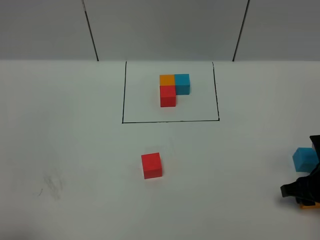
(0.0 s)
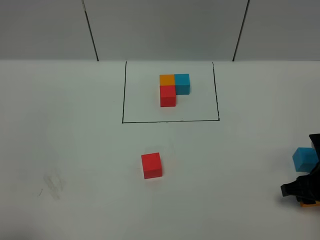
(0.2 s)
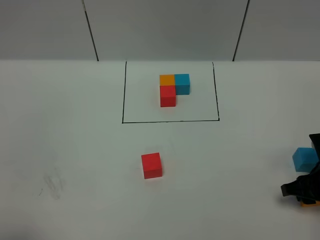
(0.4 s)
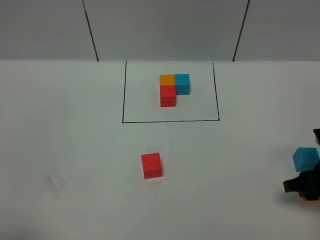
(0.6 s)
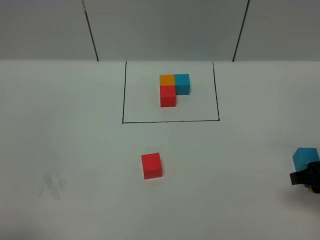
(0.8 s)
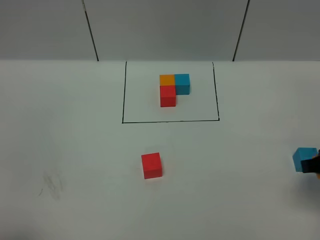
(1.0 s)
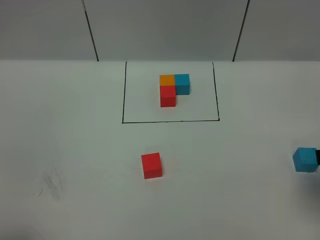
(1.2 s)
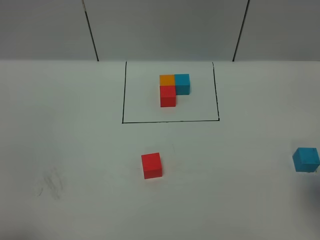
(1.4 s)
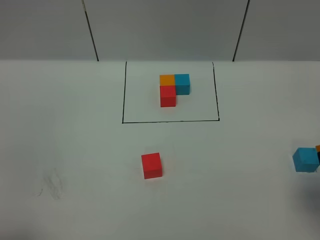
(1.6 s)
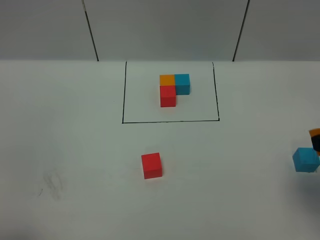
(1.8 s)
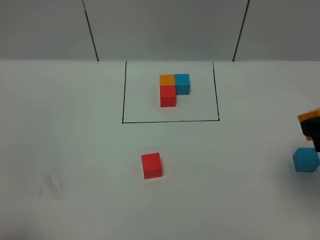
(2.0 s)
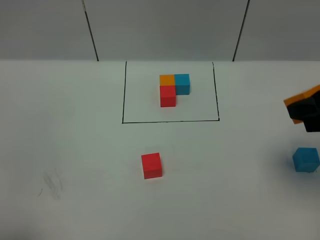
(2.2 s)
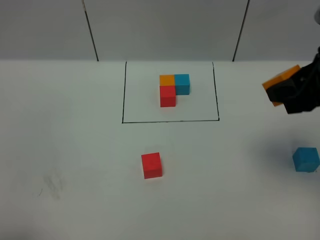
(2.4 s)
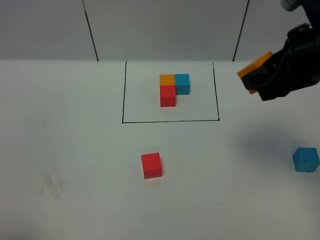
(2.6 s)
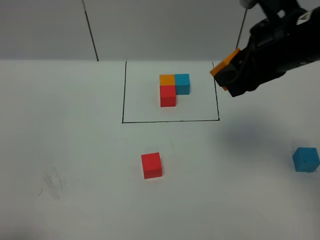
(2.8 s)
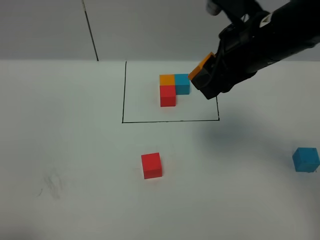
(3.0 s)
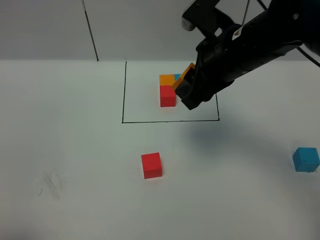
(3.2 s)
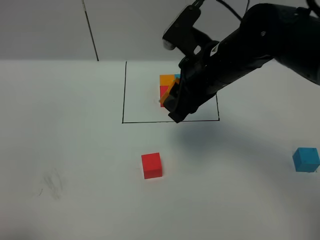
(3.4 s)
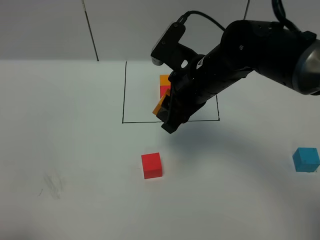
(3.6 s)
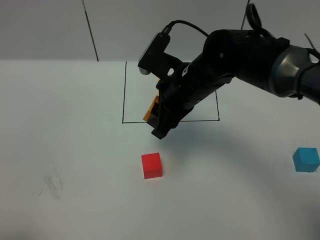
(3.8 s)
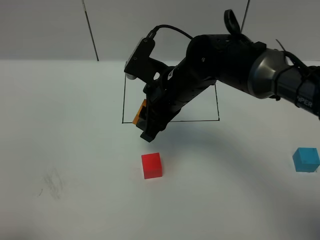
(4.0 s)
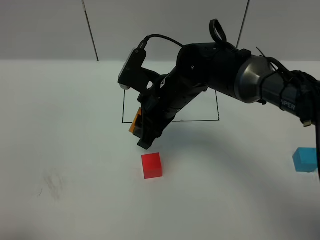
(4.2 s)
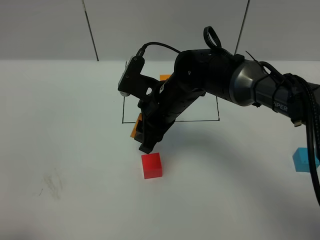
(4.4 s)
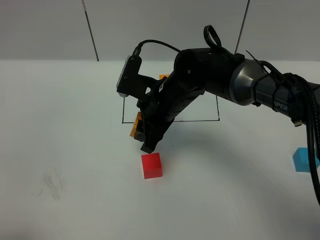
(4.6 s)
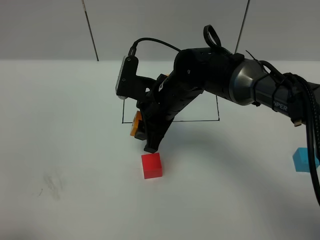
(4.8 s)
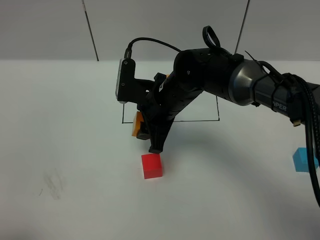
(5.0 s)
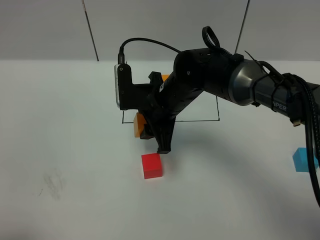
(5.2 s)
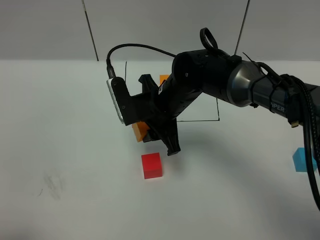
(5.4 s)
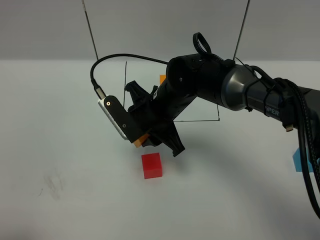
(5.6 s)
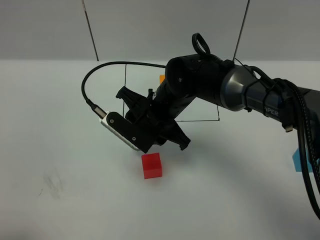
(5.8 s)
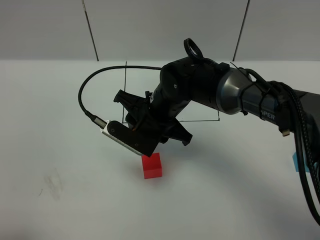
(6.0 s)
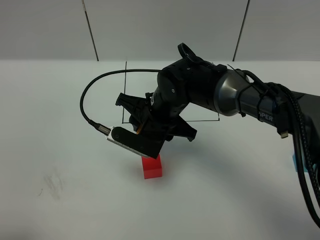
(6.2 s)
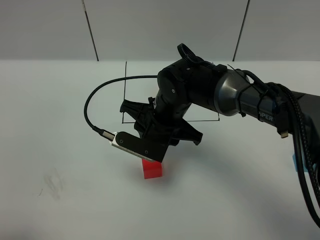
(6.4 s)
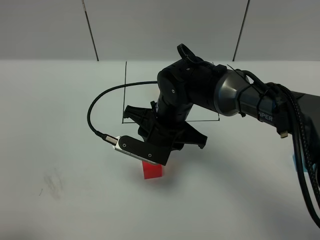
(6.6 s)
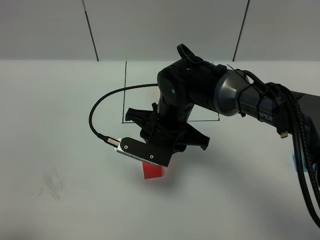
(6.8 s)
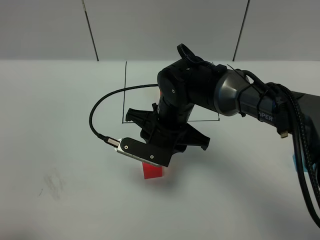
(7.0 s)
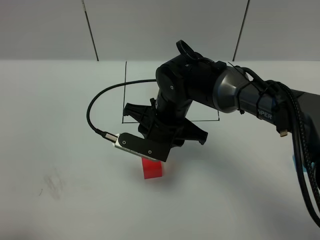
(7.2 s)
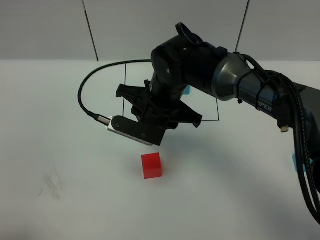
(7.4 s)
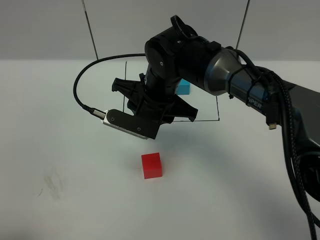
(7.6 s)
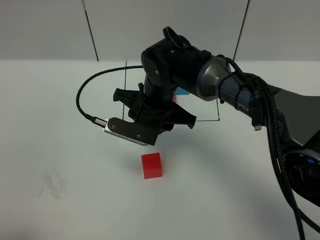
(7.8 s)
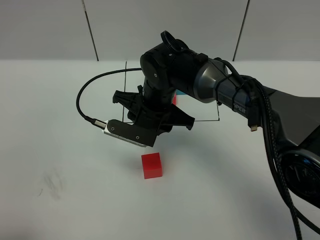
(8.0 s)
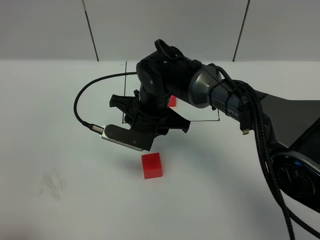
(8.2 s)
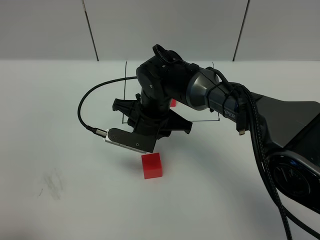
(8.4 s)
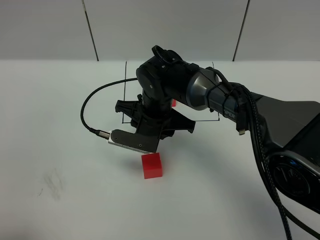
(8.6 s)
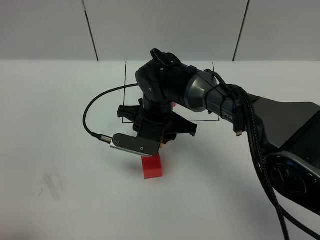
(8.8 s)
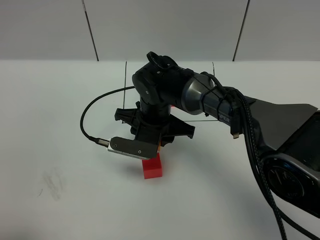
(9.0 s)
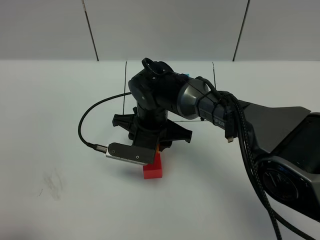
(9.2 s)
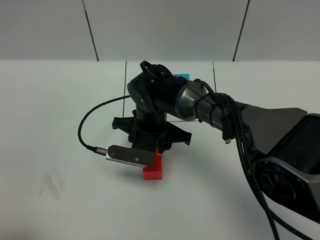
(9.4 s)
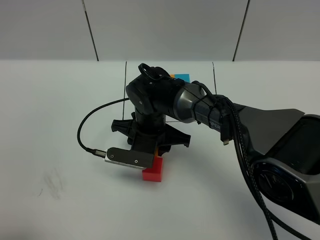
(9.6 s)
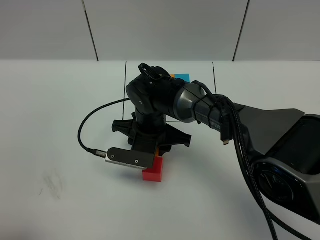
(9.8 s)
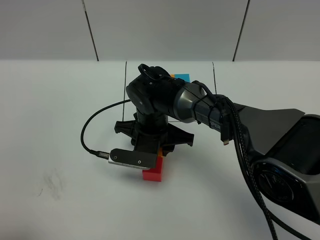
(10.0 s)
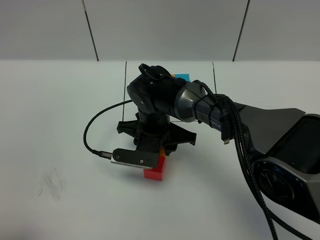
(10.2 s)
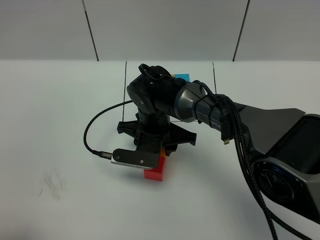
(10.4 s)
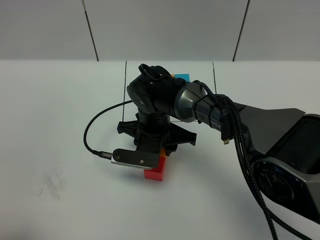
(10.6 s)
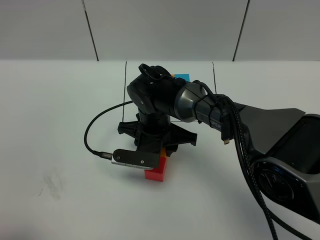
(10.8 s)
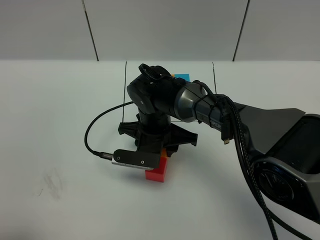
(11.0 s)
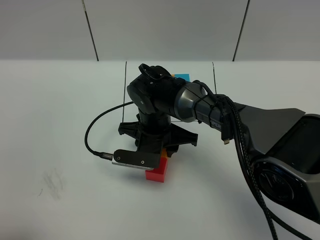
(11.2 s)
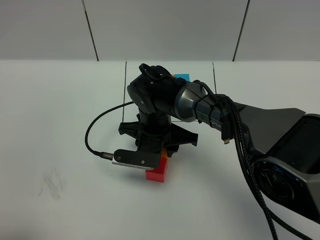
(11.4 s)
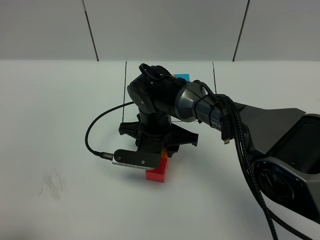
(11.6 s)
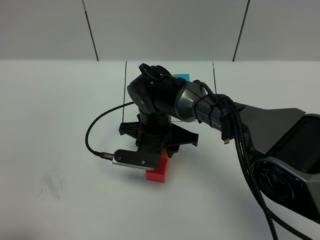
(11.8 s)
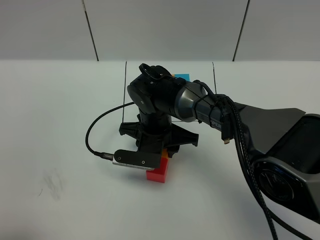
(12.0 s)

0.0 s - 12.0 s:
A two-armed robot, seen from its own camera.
Task of the whole recording: According to the building block template in front, assemble the scattered blocks together.
0.0 s - 1.6 s: The right gripper moves upward, some 20 cm.
1.6 s - 3.0 s: The right gripper heads forward and to the left, covering approximately 20 cm.
3.0 s - 4.4 s: The right gripper shifts some 20 cm downward and to the left.
6.0 s - 7.6 s: There are only small adjustments of the grippers.
7.6 s - 9.0 s: The right gripper heads downward, covering about 5 cm.
9.0 s - 10.4 s: There are only small adjustments of the grippers.
10.4 s - 12.0 s: Both grippers stay about where they are.

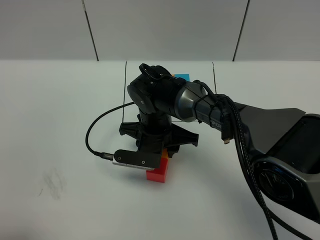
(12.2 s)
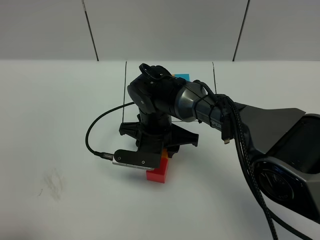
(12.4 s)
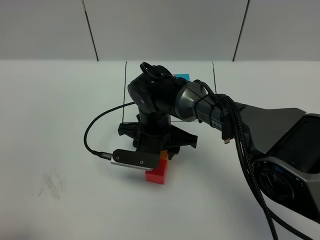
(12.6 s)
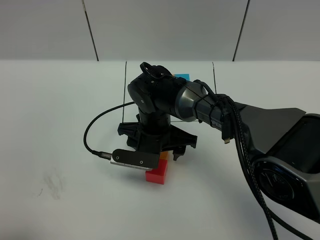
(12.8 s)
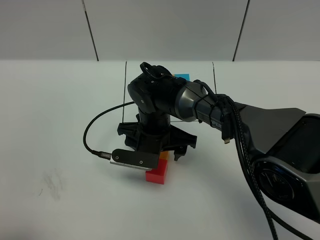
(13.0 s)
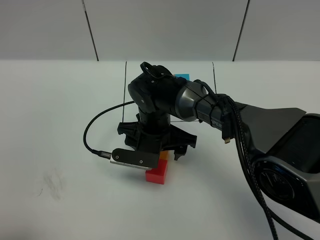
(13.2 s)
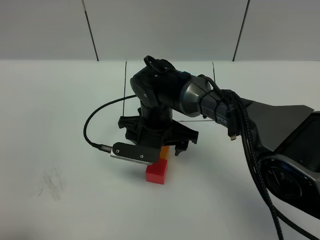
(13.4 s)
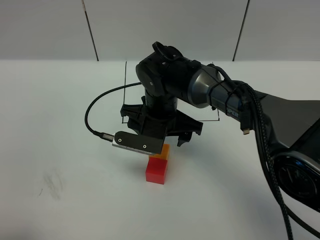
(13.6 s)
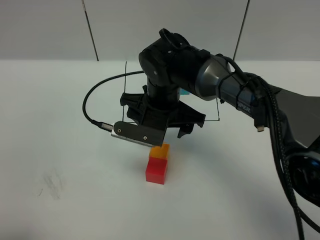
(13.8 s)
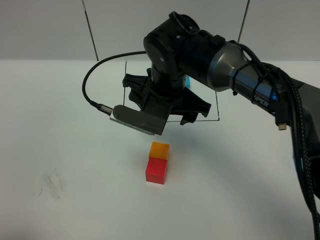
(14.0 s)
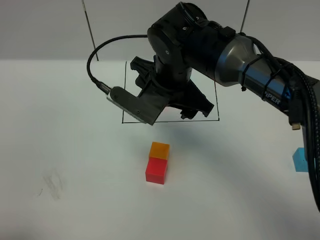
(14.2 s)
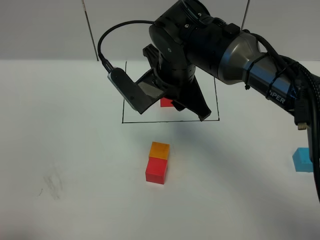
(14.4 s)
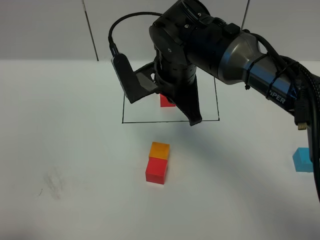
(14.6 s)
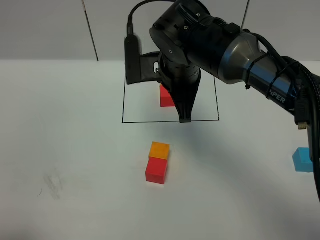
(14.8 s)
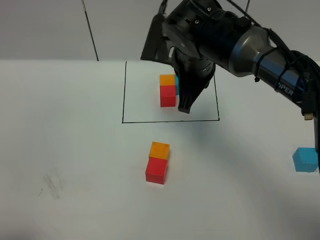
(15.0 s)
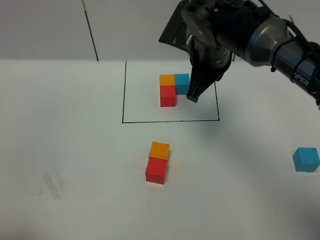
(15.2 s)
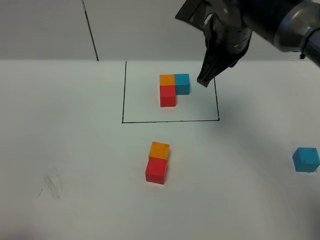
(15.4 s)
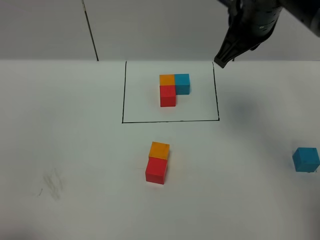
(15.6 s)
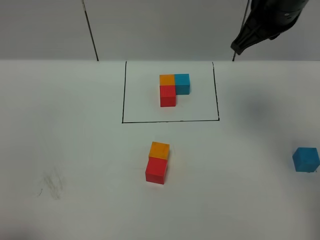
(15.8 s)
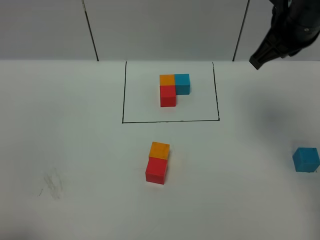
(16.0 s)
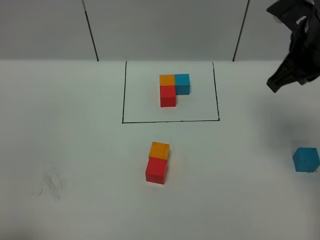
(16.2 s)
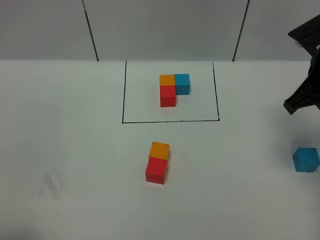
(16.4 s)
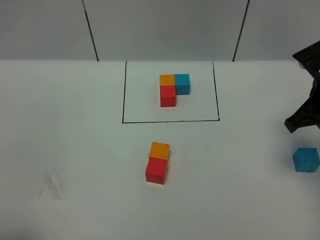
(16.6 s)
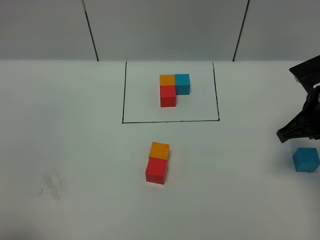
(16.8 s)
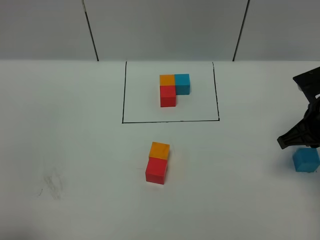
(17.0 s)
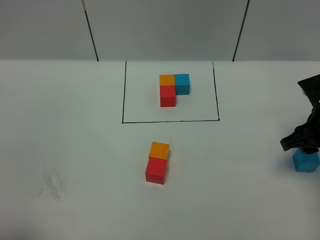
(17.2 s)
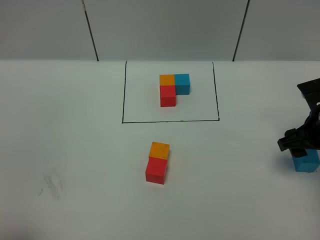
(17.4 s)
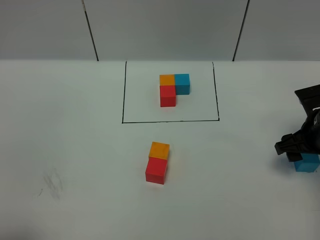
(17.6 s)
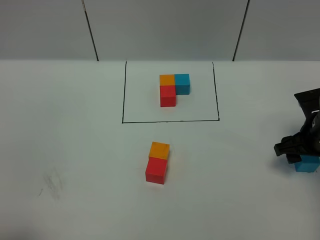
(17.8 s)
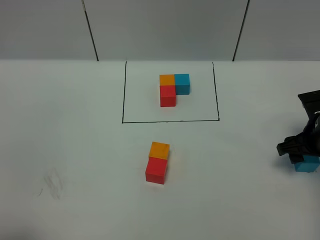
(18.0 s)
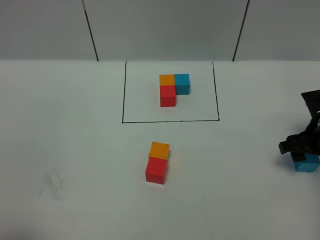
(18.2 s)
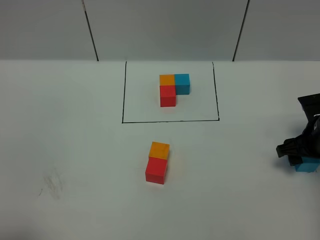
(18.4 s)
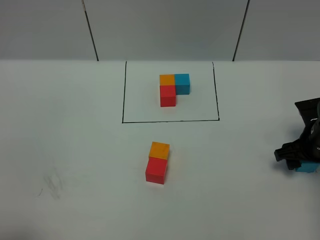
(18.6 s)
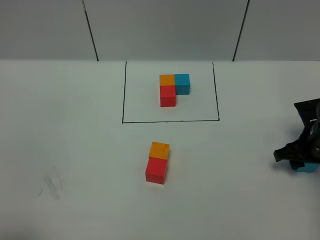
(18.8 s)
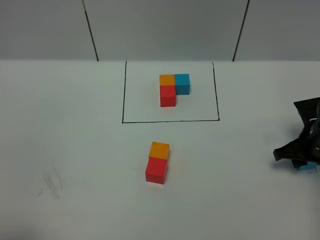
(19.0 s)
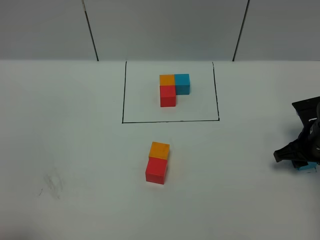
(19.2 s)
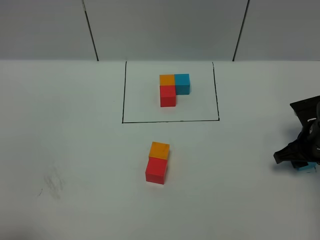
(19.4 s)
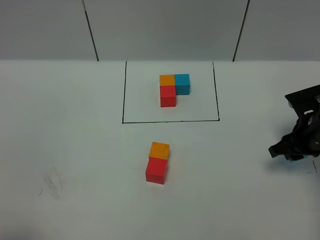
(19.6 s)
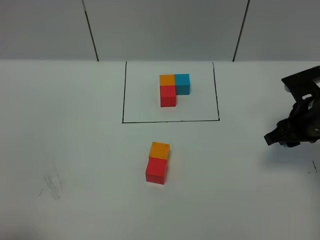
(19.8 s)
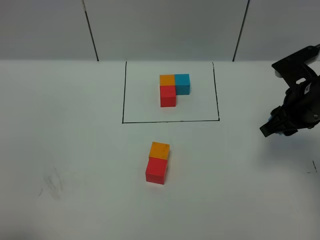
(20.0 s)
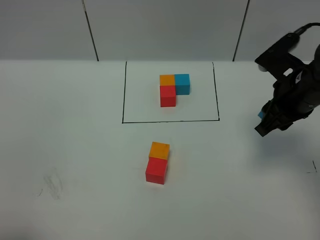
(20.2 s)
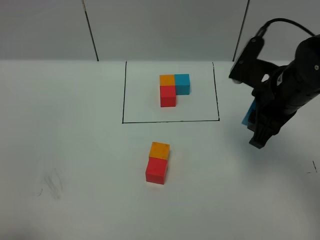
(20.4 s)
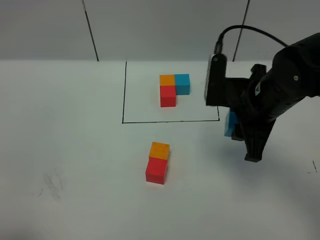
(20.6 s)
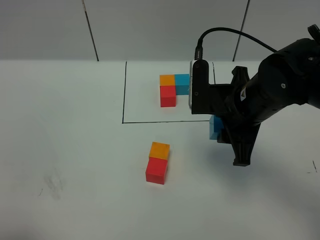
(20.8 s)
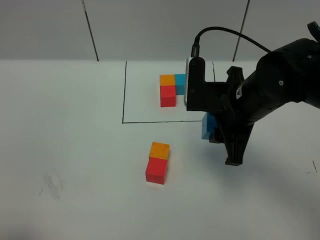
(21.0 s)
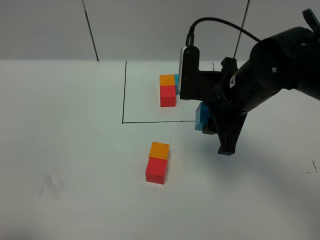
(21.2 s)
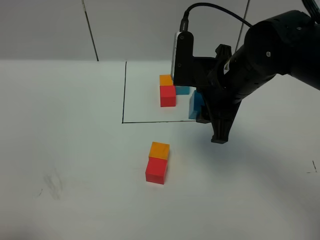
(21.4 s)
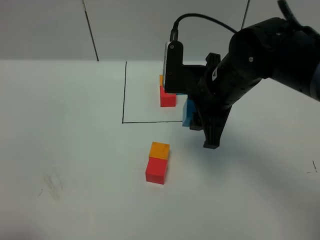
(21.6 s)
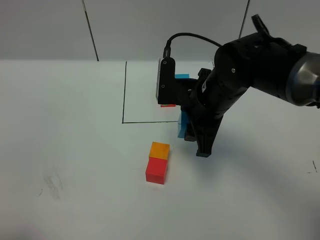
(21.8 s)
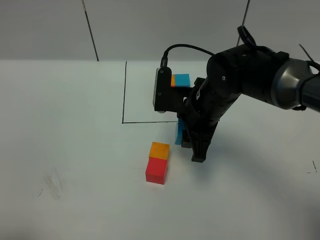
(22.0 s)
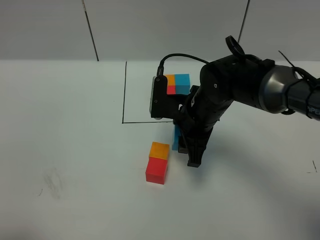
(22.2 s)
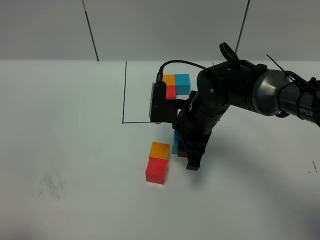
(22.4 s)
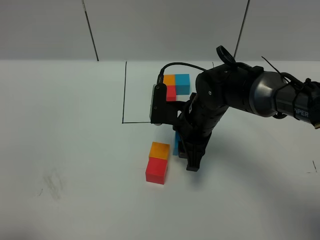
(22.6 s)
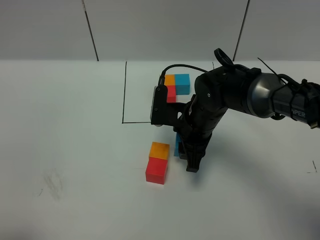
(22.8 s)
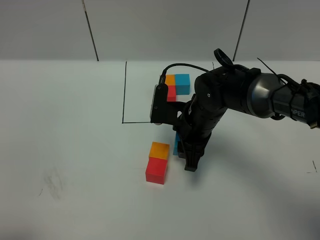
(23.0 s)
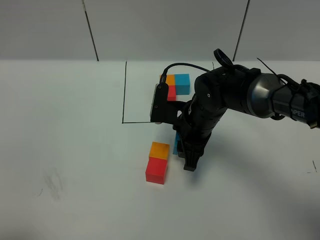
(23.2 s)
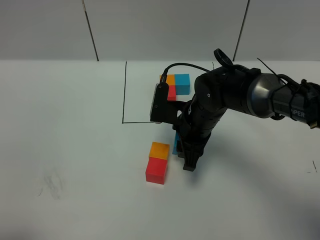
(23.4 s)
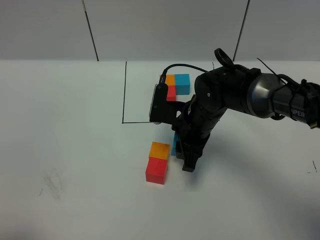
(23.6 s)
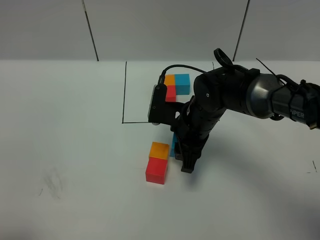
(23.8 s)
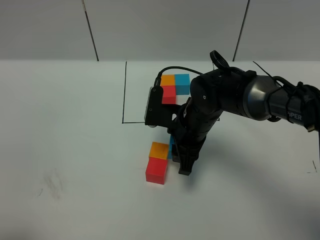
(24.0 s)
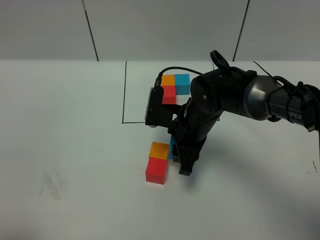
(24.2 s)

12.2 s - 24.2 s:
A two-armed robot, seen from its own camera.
Task of the whole recording: According to the building block template in front, assemble the scattered blocks together.
12.2 s - 13.8 s: The right gripper moves upward, roughly 5 cm, and opens its fingers.
13.8 s - 15.2 s: The right gripper heads to the right and upward, covering approximately 10 cm, and closes its fingers.
15.2 s - 16.6 s: The right gripper heads to the right and backward, covering about 20 cm.
16.6 s - 18.2 s: The right gripper travels downward by approximately 10 cm, and opens.
18.2 s - 19.8 s: The right gripper moves approximately 5 cm, and closes its fingers.
19.8 s - 21.2 s: The right gripper is displaced to the left and upward by approximately 15 cm.
21.2 s - 22.6 s: The right gripper goes roughly 10 cm downward.
22.6 s - 24.2 s: Neither gripper changes place.
